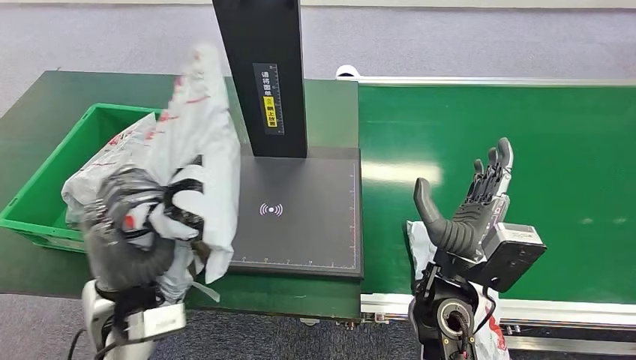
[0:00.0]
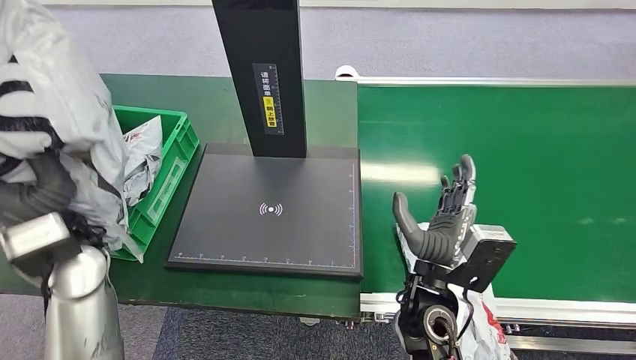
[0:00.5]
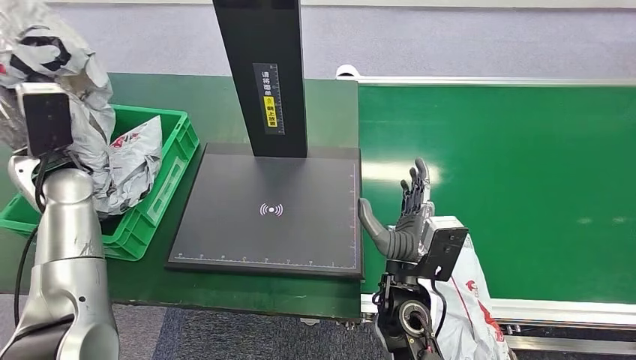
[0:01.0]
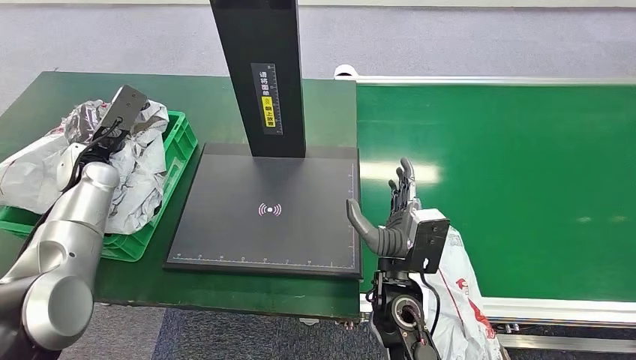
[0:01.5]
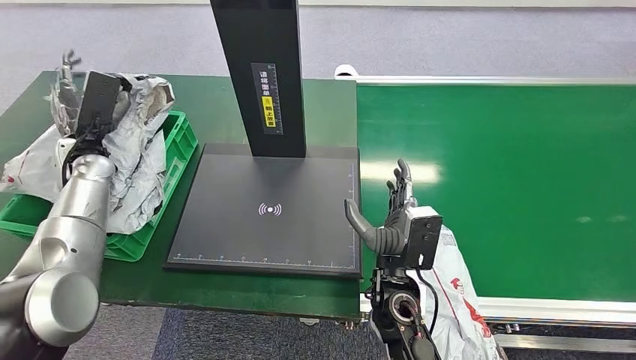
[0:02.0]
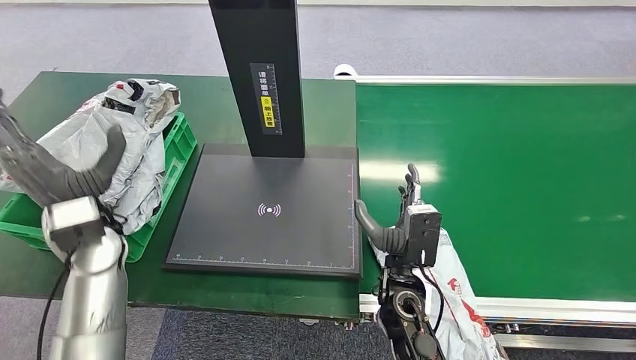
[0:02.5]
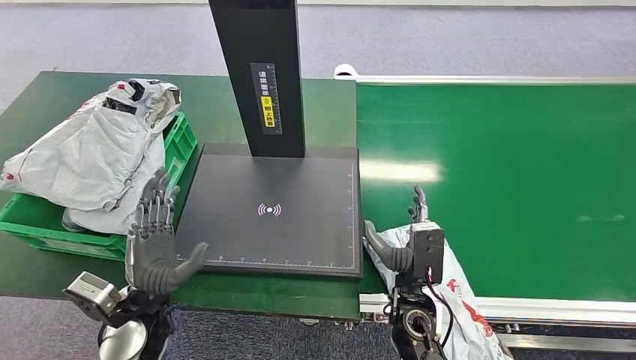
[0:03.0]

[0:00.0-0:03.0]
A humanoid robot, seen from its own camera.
Step, 0:01.0 to 0:03.0: Place the package into the parcel locker.

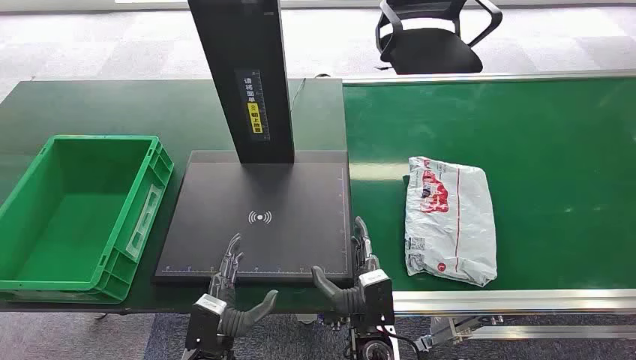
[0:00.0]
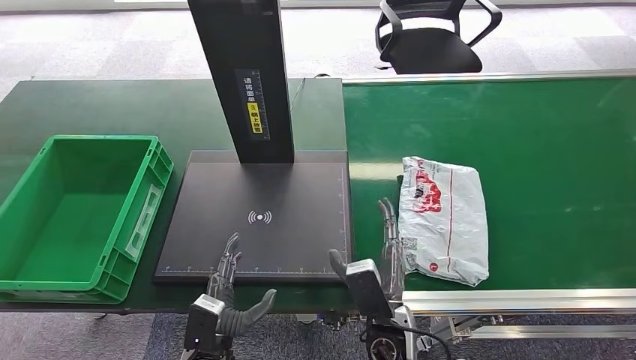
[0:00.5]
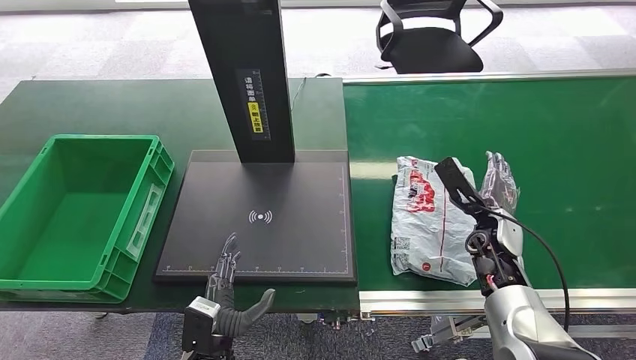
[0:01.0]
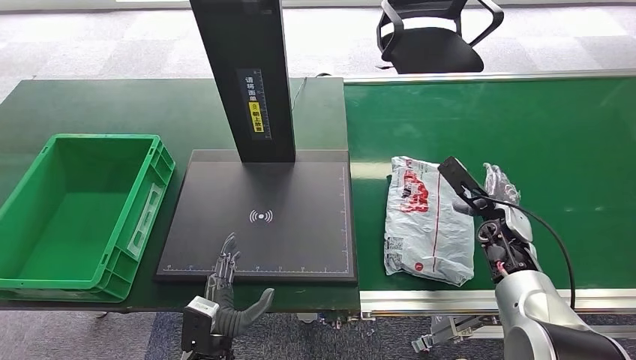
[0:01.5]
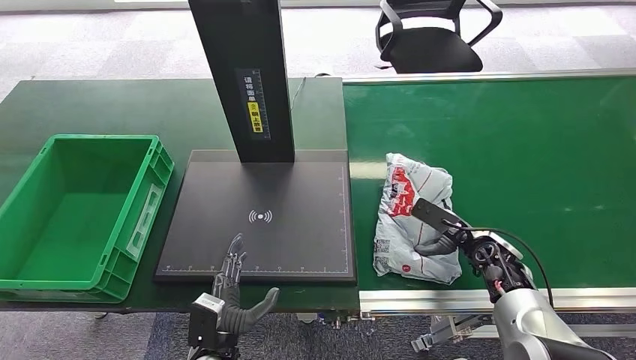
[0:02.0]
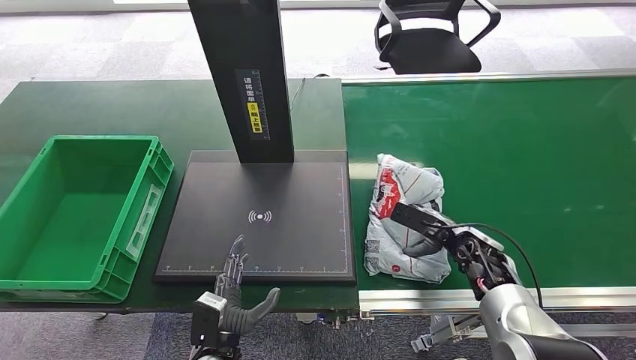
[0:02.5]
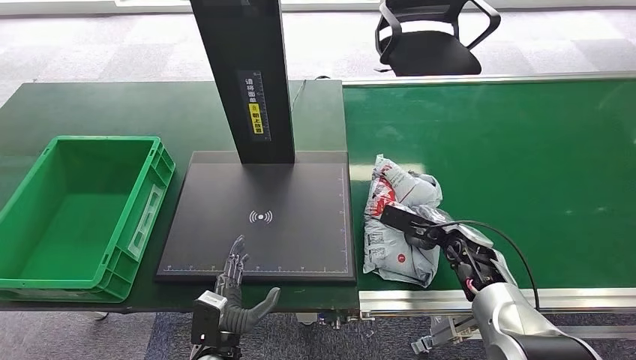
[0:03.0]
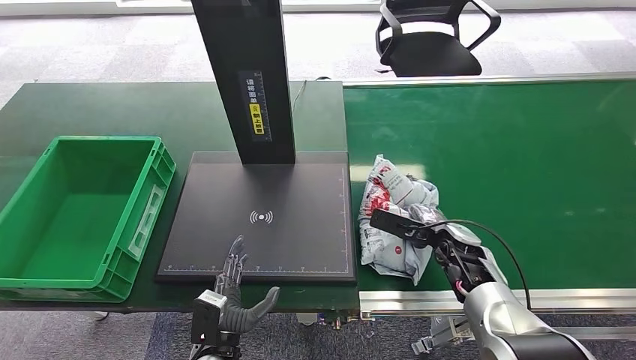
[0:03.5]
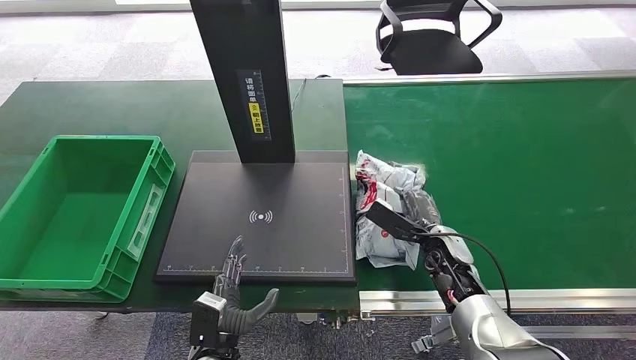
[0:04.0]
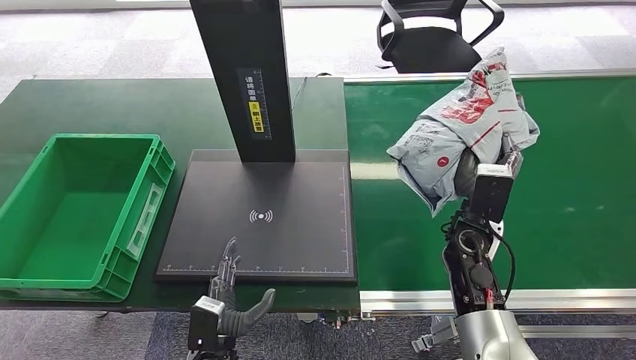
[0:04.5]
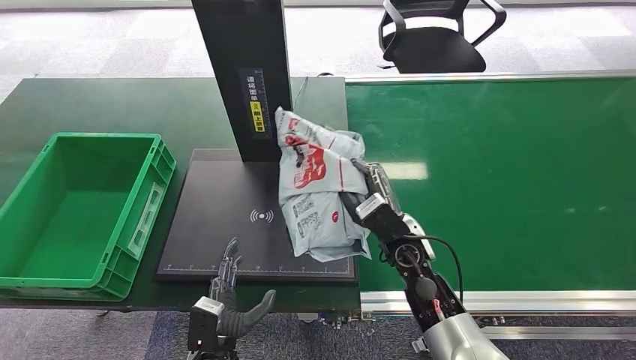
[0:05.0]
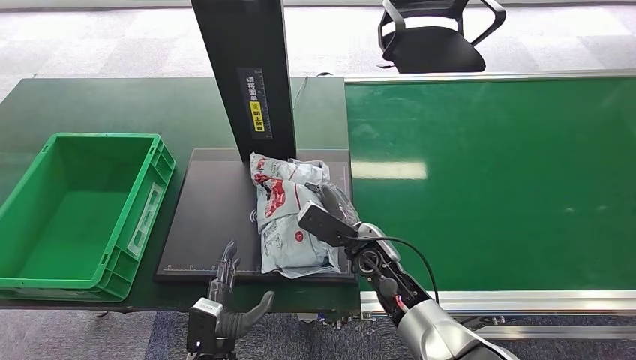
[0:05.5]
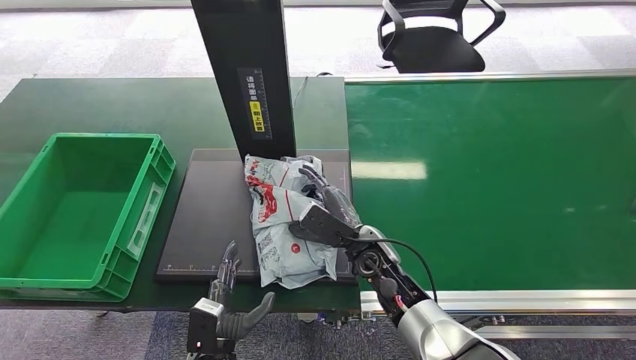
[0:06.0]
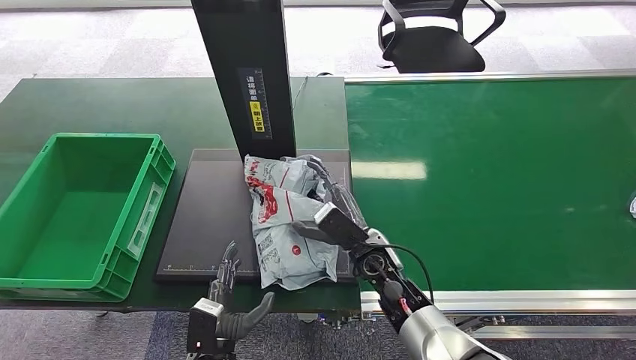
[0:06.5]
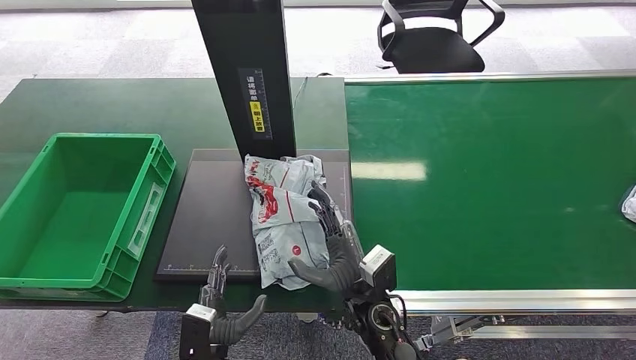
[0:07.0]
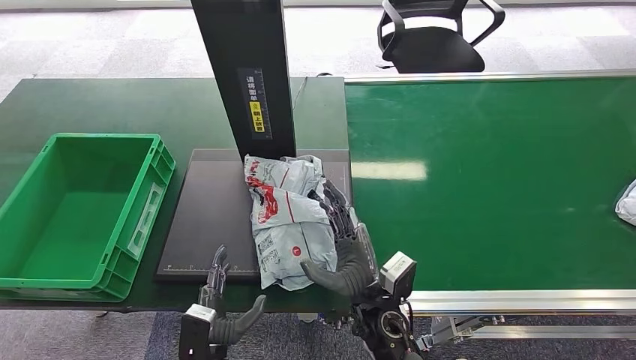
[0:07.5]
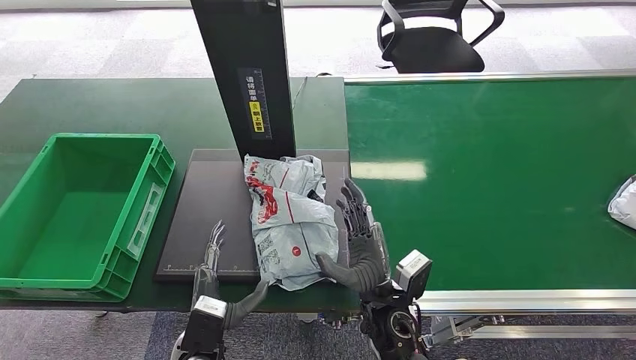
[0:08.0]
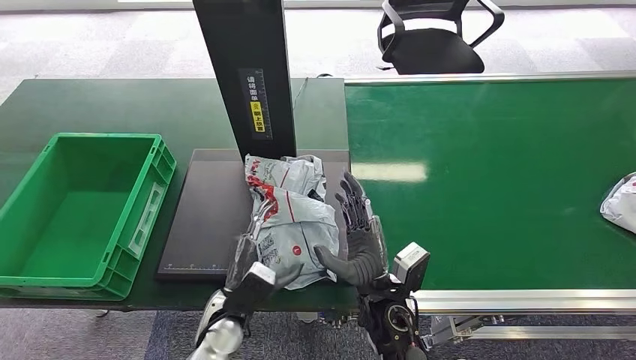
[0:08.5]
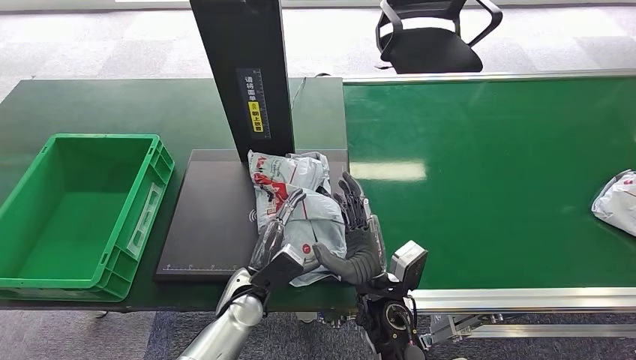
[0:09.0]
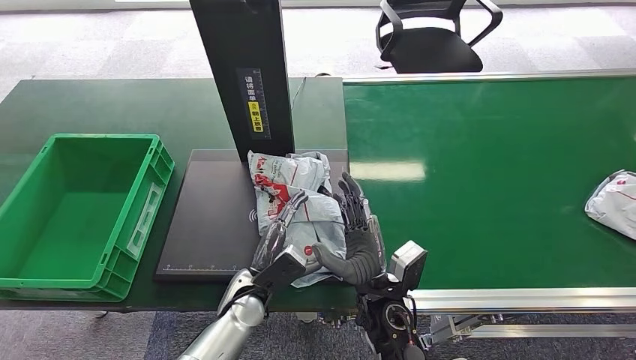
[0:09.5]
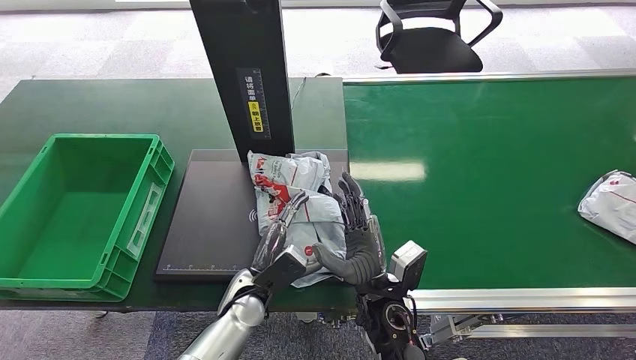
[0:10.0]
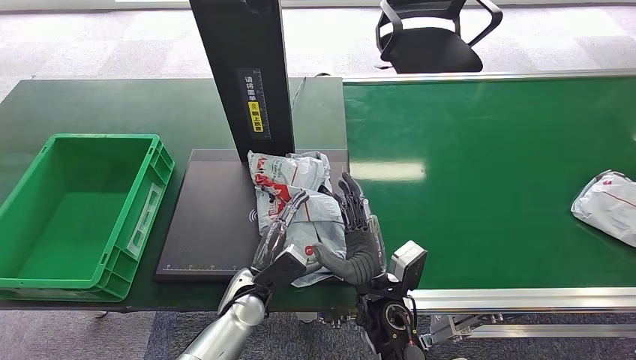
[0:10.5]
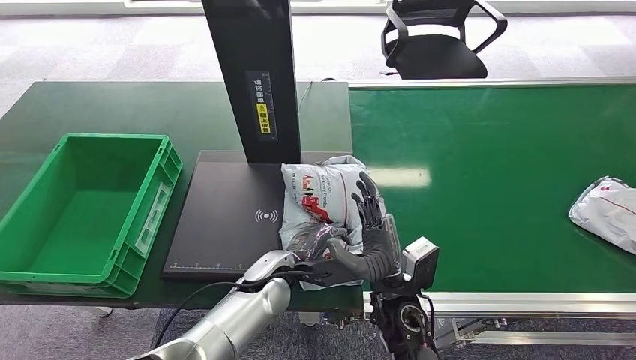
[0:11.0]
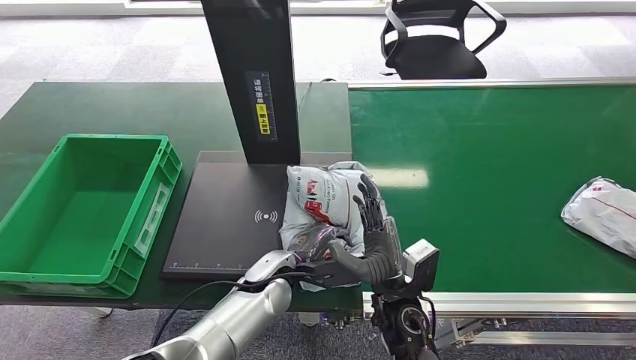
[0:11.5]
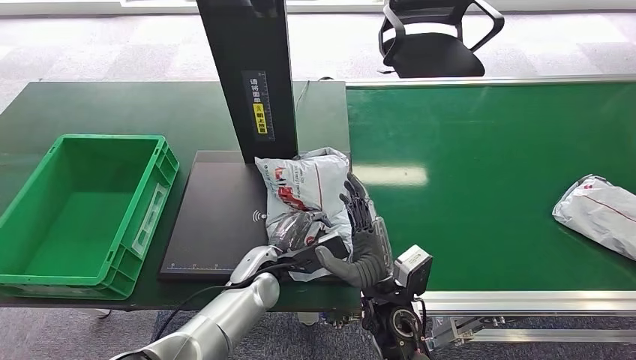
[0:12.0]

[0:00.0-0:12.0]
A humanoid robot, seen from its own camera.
Step, 0:00.0 to 0:04.5: Pick up the package from the conveyor belt.
Step, 0:05.0 to 0:07.0: Place the package onto the inbound machine.
0:02.0 to 0:04.0: The right hand heads to the left, covering roughly 10 cm.
0:04.0 to 0:06.0: The right hand moves to the left, approximately 15 cm.
0:06.0 to 0:08.0: The right hand travels backward by some 10 cm.
0:08.0 to 0:10.0: The left hand moves forward, about 10 cm.

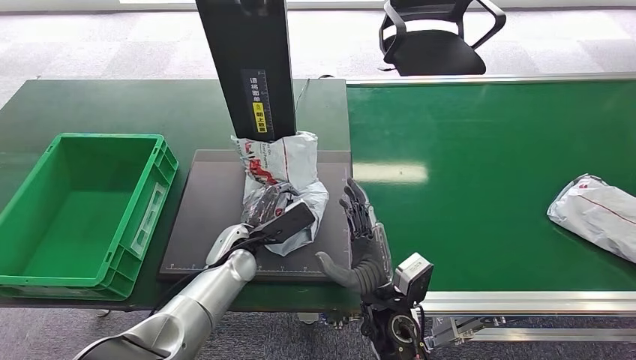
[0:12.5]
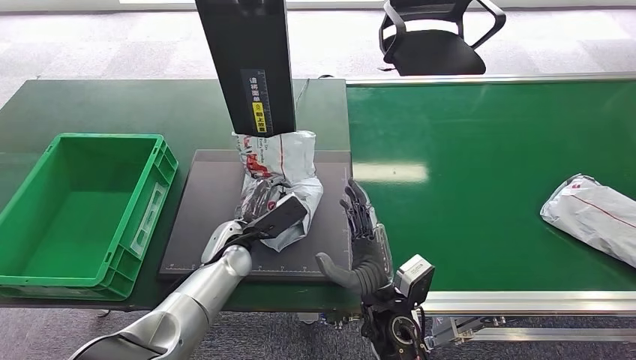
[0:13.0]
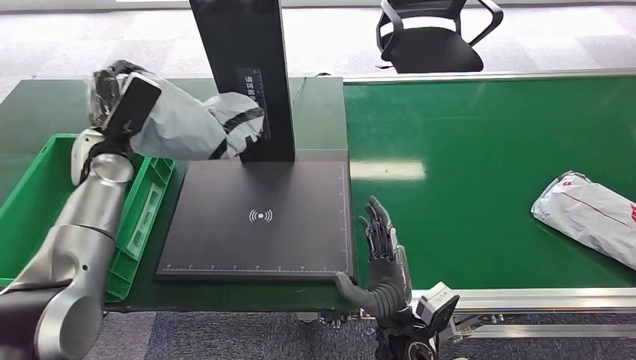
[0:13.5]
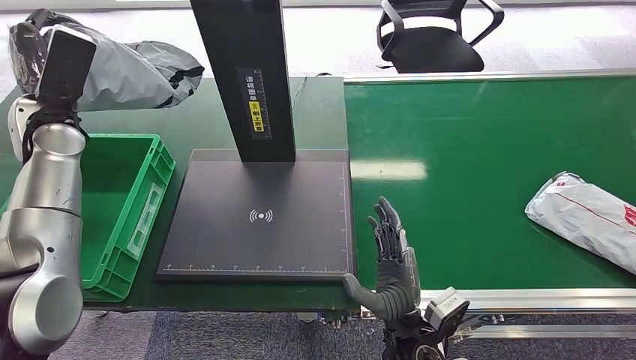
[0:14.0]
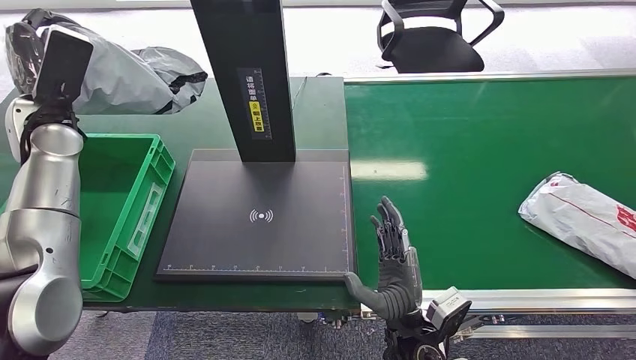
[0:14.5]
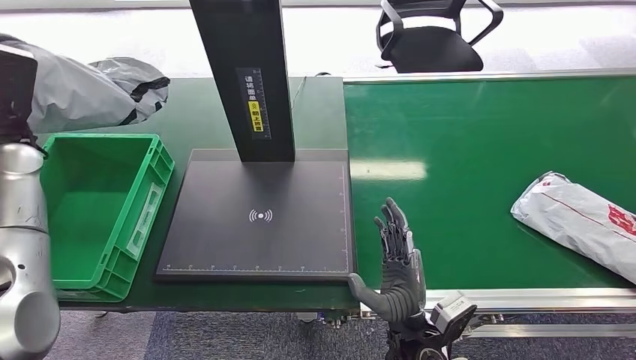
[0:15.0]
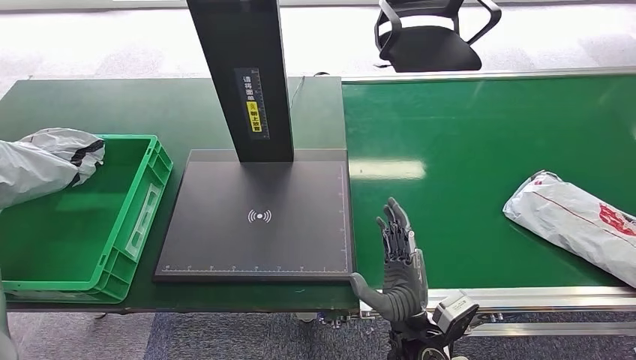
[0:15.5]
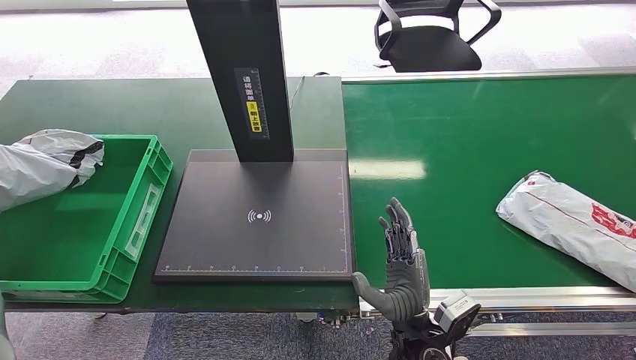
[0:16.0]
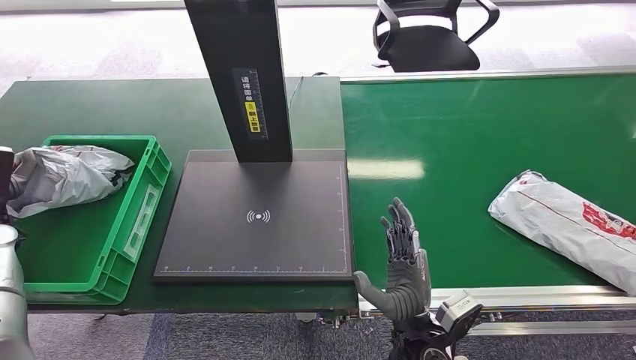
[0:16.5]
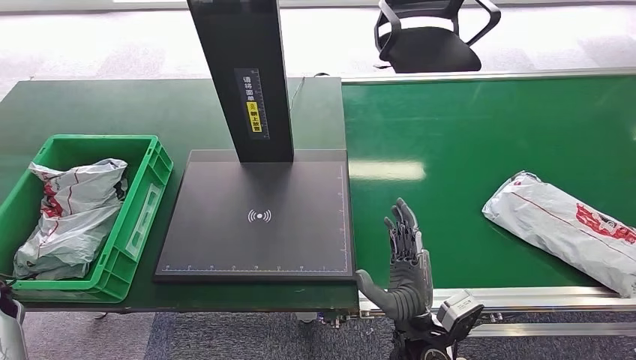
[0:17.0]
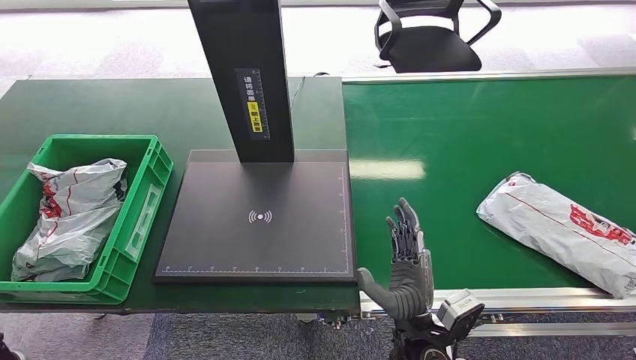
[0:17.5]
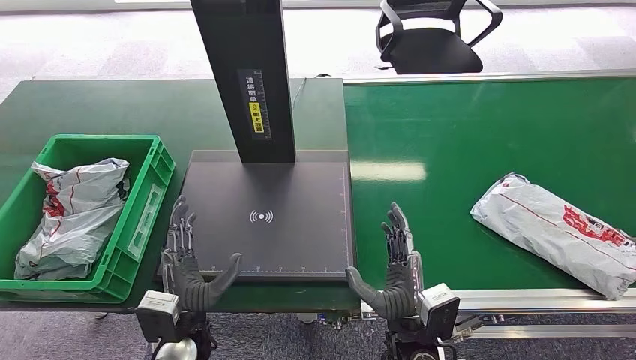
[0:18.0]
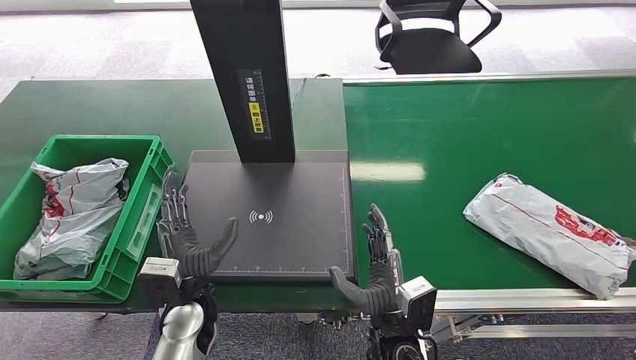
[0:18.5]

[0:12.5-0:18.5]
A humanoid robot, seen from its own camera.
Step, 0:14.5 to 0:18.5: Place the package into the parcel locker.
